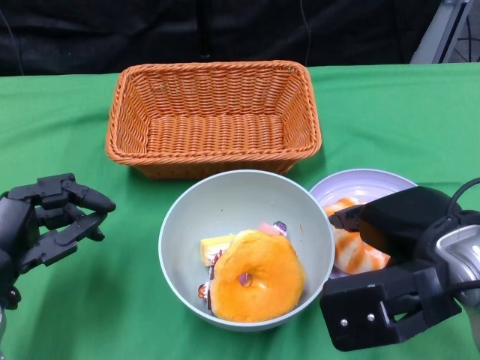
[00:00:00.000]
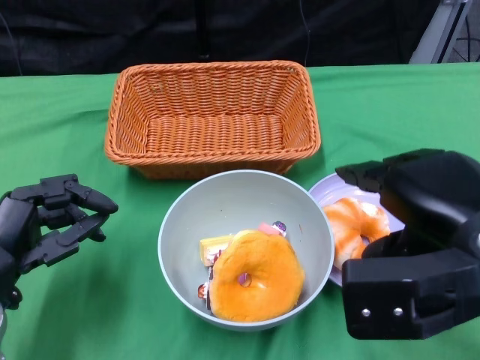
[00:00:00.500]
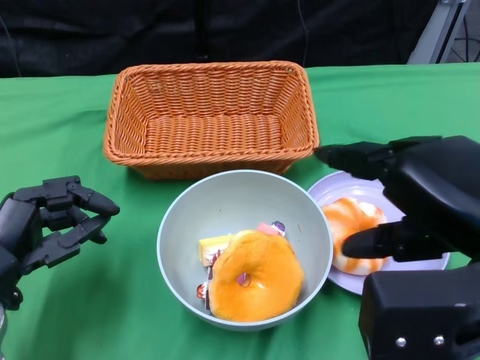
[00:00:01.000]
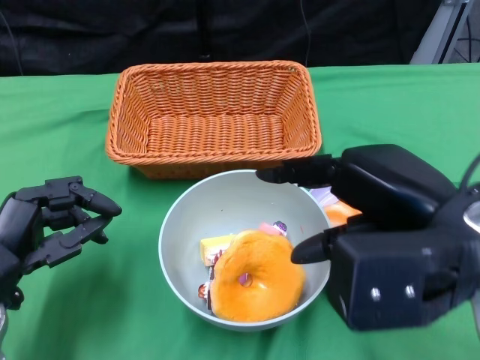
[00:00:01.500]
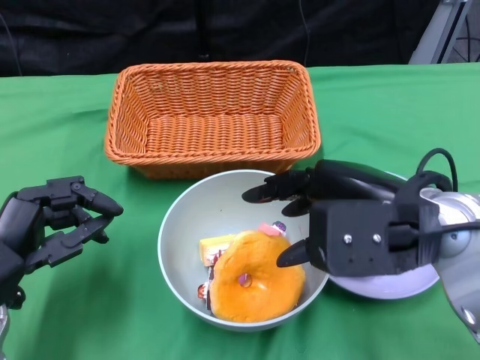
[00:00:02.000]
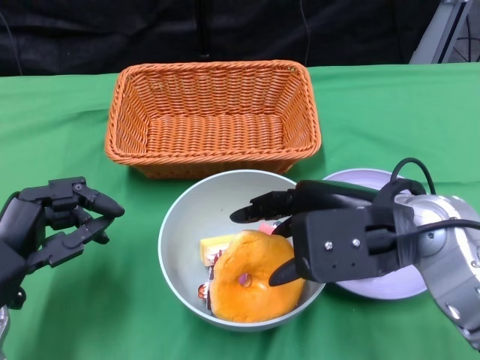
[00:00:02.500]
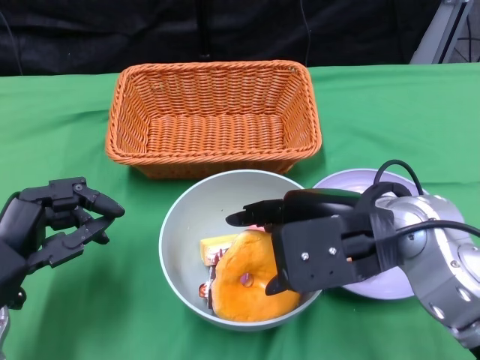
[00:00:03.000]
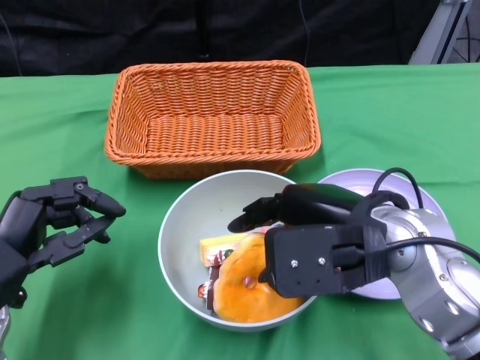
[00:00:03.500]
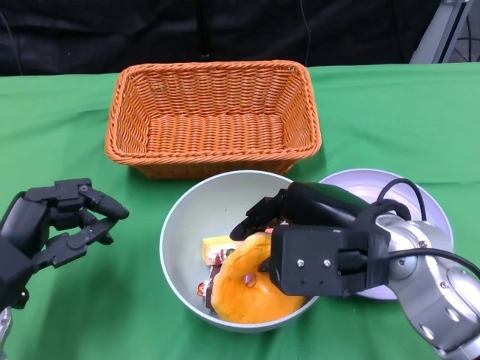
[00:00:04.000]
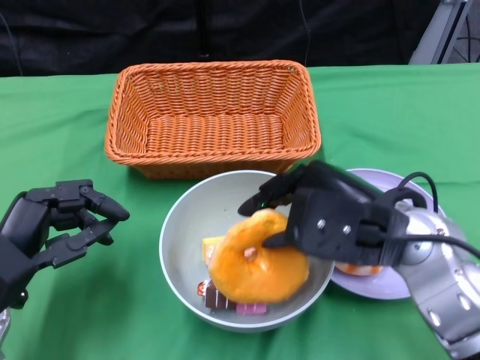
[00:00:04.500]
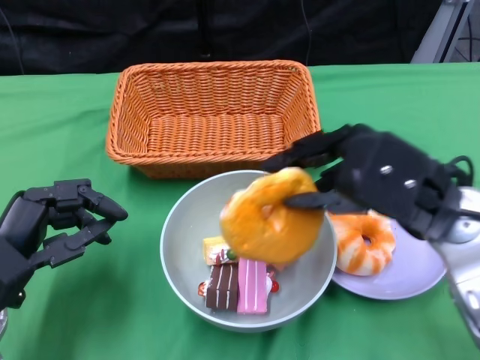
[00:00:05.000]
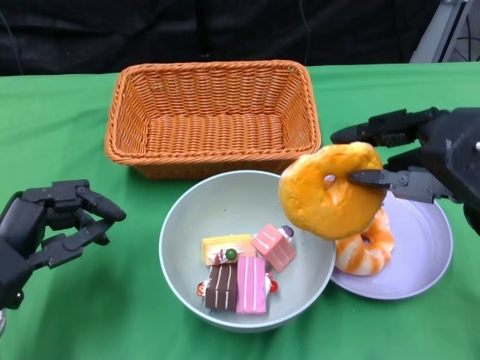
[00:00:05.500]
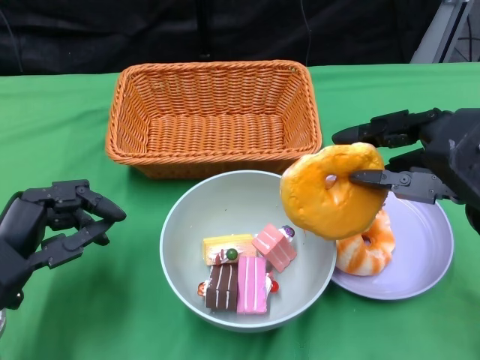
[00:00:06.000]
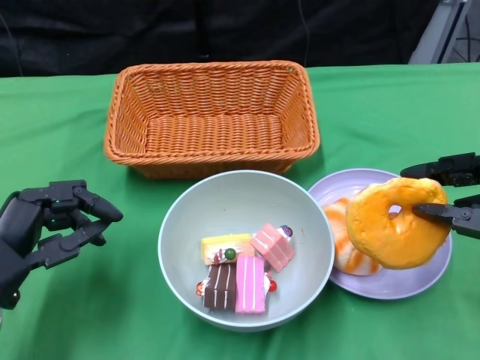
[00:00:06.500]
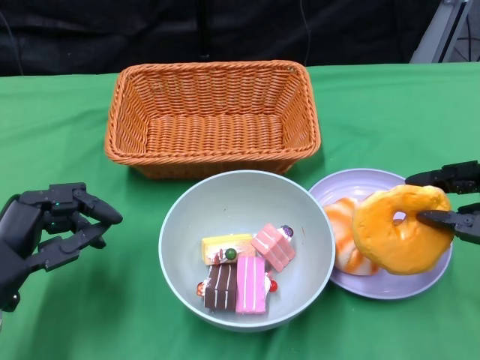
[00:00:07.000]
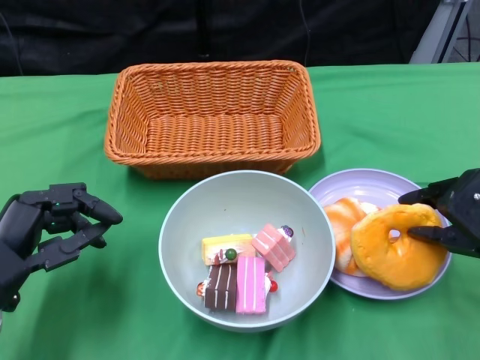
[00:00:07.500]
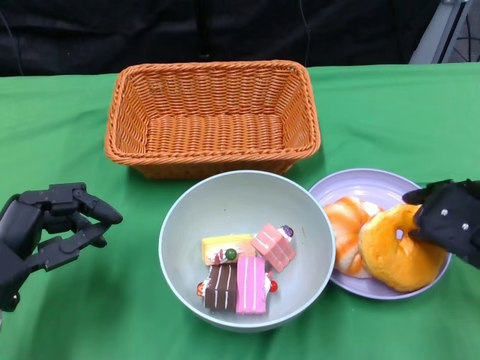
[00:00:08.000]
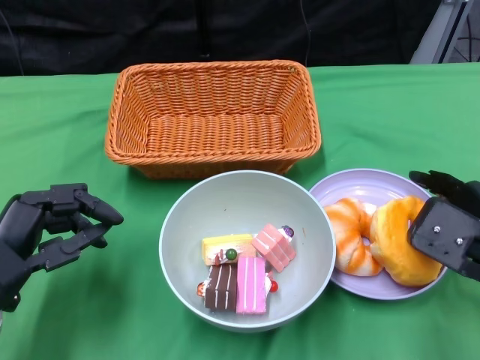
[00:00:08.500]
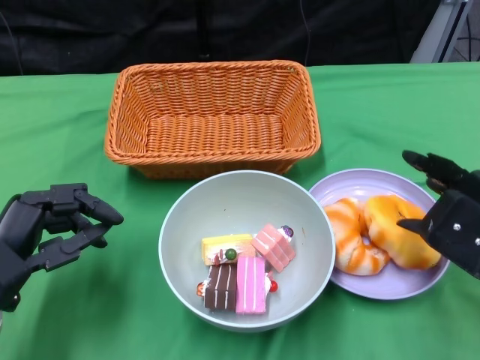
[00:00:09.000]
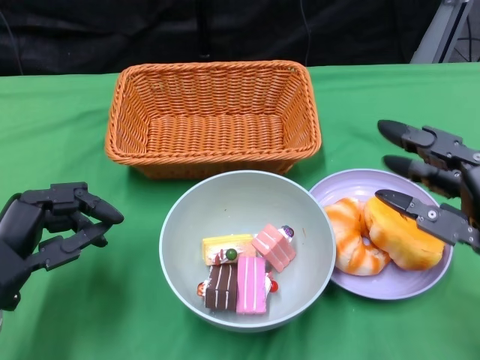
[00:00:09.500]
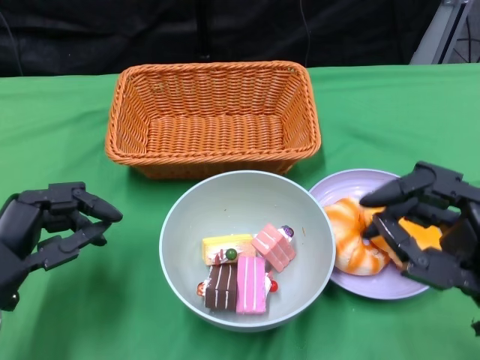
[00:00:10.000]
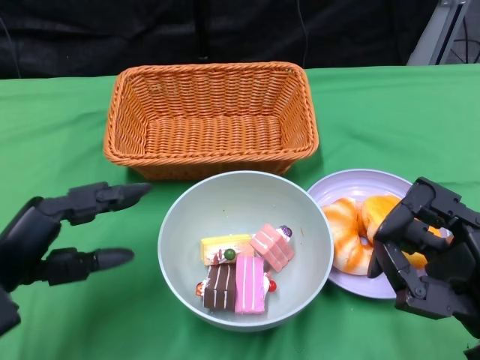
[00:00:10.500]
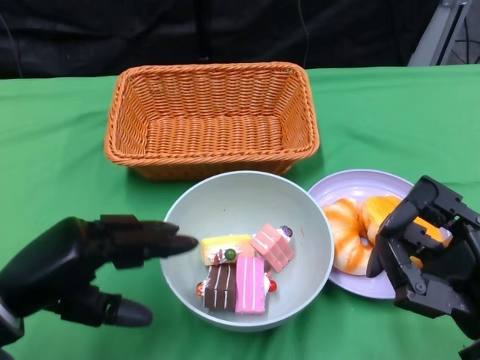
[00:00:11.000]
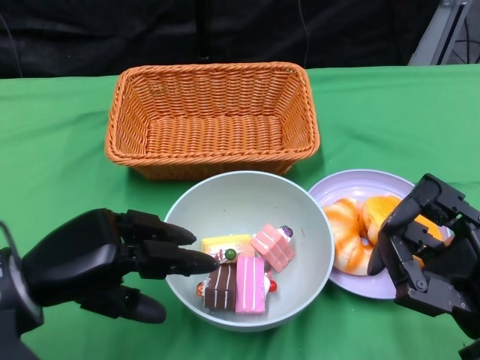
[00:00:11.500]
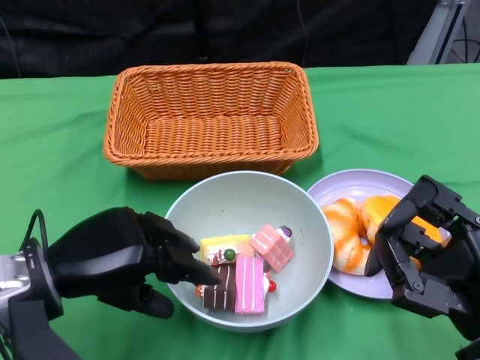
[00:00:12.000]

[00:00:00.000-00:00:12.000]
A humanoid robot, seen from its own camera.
Step, 00:00:00.000 to 00:00:09.000: Pick up the bread with the right gripper and place it on the plate.
00:00:02.000 to 00:00:04.000: The hands move only a little.
00:00:04.000 to 00:00:06.000: The right hand shifts some 10 cm to the right.
00:00:06.000 to 00:00:08.000: The right hand moves downward, about 10 cm.
00:00:08.000 to 00:00:10.000: The right hand shifts approximately 10 cm backward.
00:00:10.000 to 00:00:12.000: The left hand ends up approximately 5 cm from where it was.

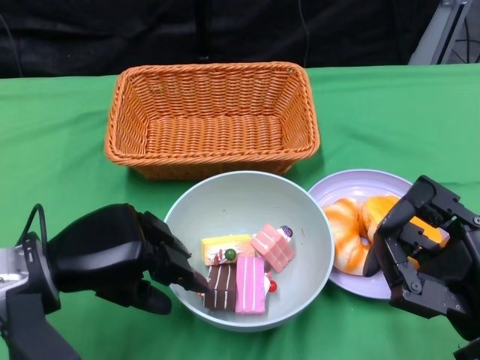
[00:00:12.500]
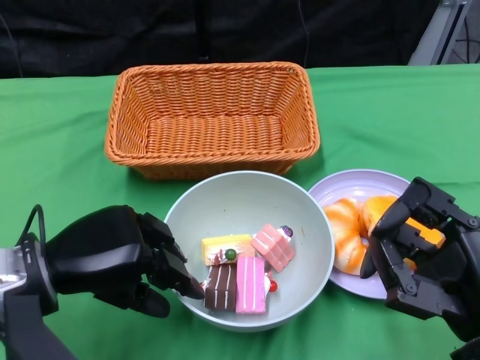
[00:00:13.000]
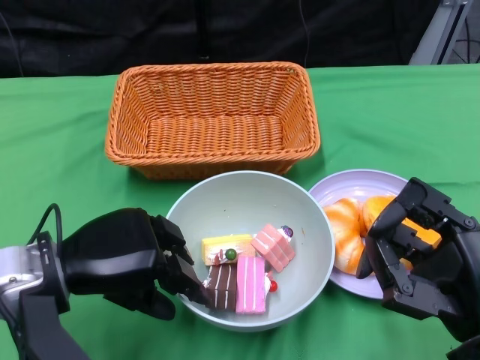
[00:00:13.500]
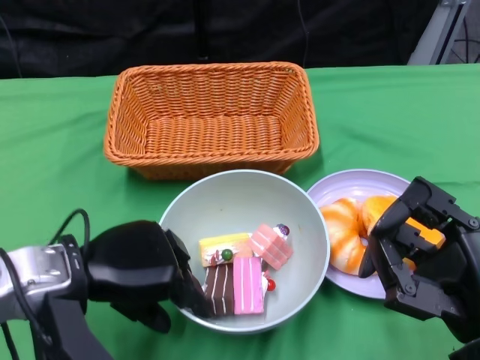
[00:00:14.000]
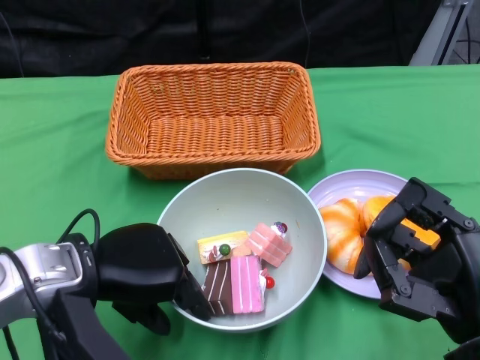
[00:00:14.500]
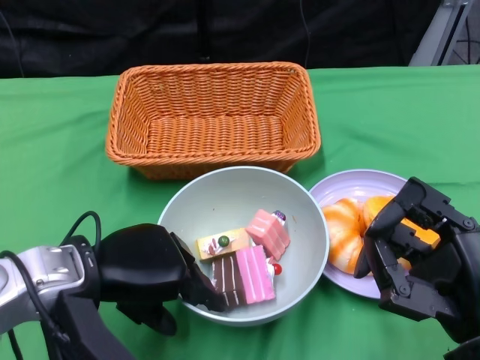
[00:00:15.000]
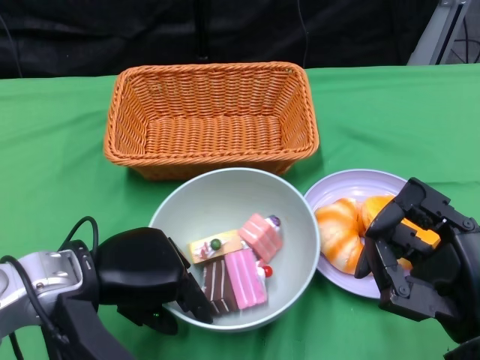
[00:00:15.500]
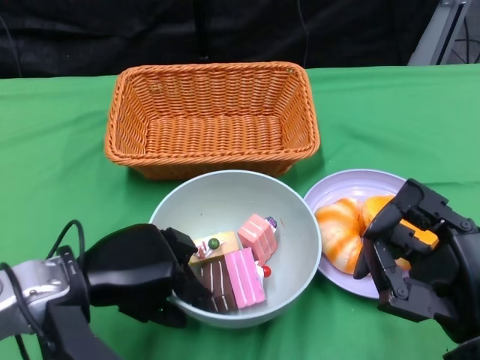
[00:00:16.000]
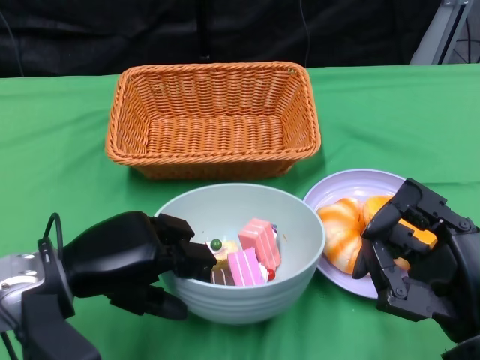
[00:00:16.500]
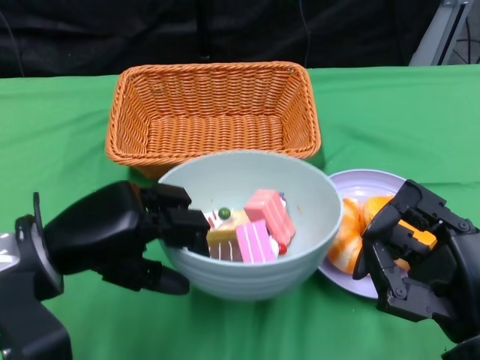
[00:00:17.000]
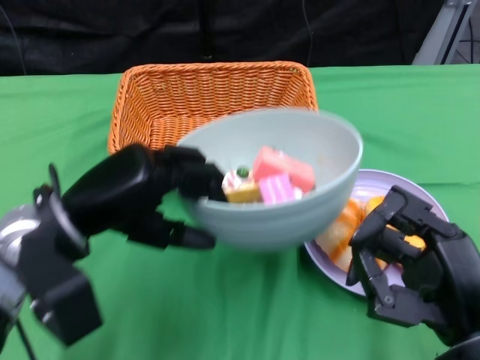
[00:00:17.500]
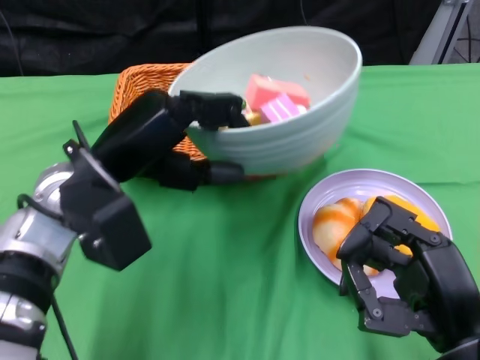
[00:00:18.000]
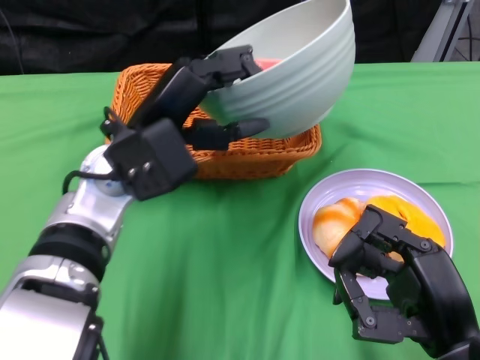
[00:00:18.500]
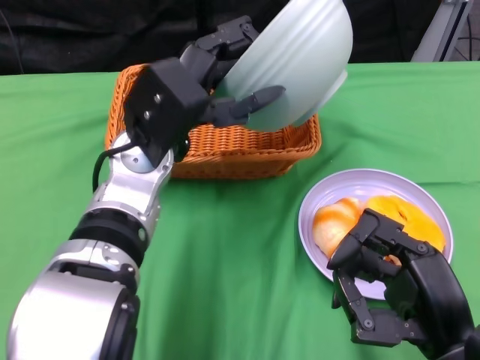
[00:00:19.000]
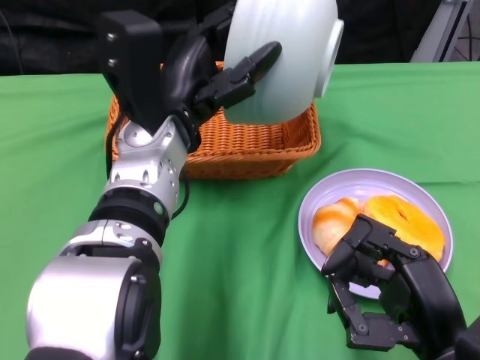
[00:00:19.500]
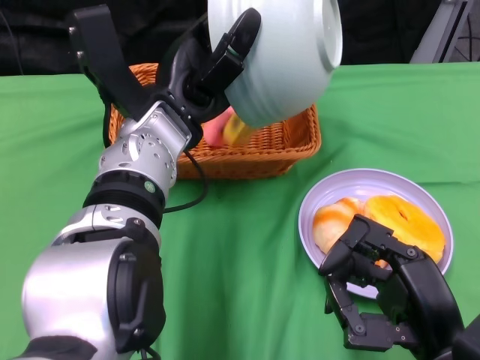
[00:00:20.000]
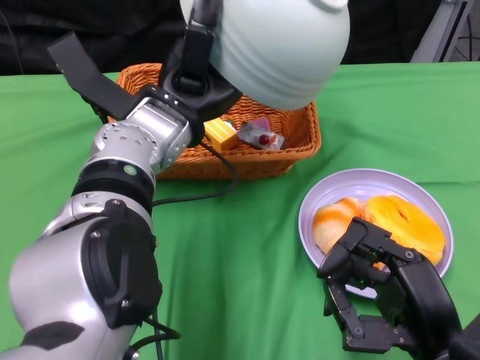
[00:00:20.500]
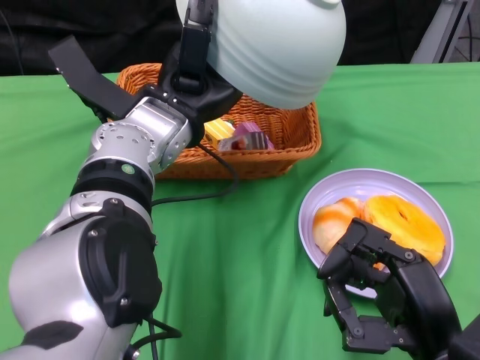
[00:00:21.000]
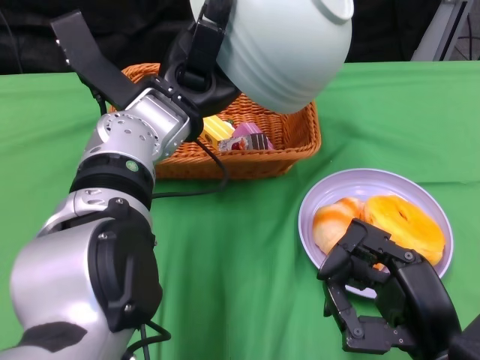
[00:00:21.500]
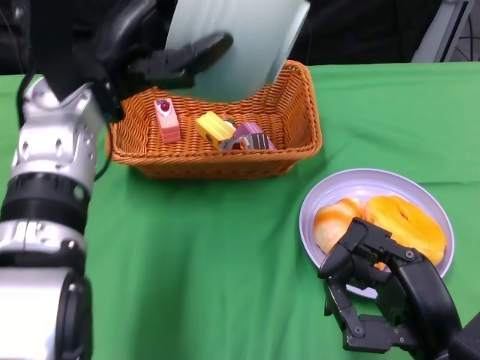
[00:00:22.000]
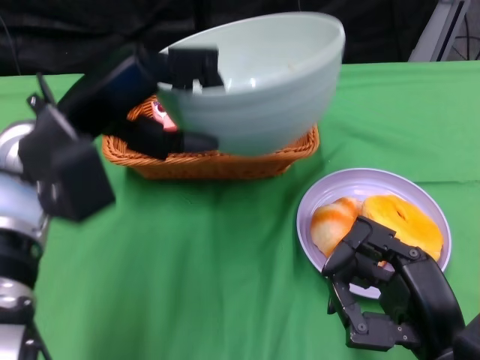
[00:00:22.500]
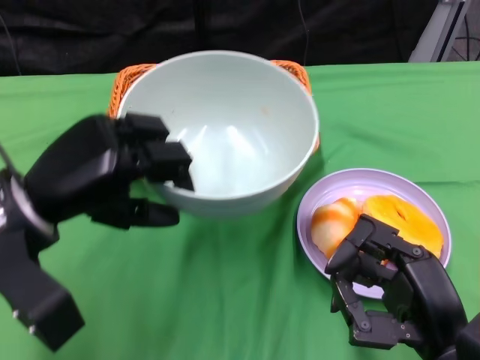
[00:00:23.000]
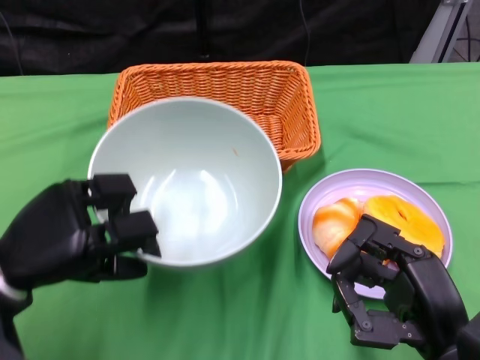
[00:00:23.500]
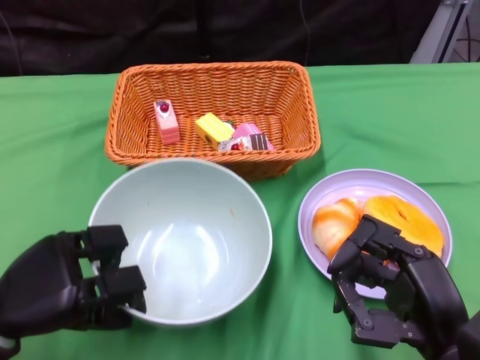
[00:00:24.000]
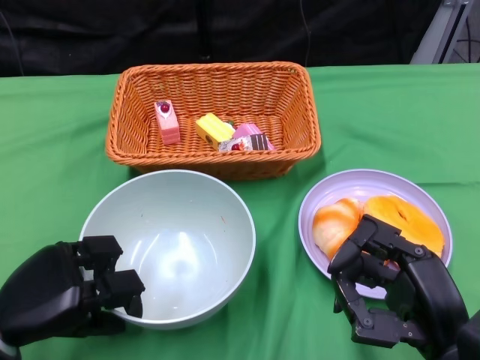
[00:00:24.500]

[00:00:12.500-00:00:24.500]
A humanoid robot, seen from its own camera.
Step, 00:00:12.500 to 00:00:15.000: Grasp the bowl with the left gripper.
Step, 00:00:15.500 to 00:00:21.500: Pour the cake into the basket with the left gripper.
00:00:16.500 to 00:00:18.500: The left hand goes some 15 cm to the right, forward and upward.
00:00:20.500 to 00:00:22.500: The left hand shifts about 10 cm to the left.
00:00:22.500 to 00:00:24.500: The left hand travels downward, backward and to the left by approximately 20 cm.

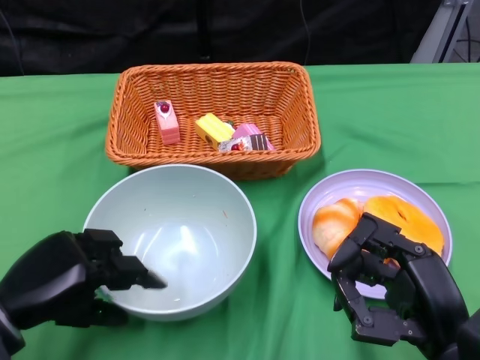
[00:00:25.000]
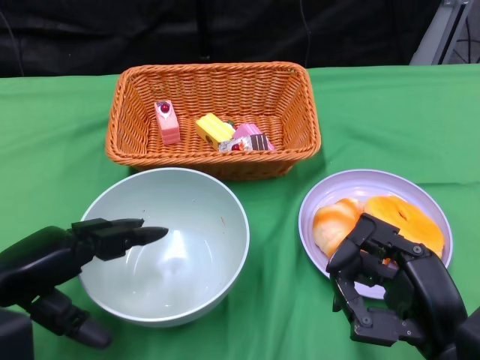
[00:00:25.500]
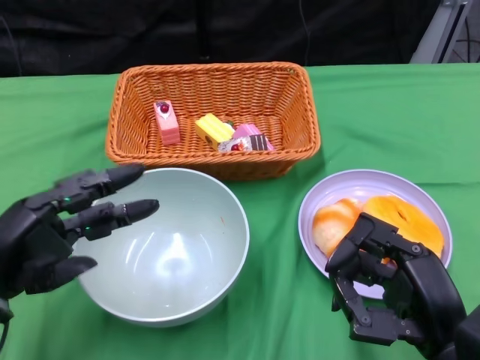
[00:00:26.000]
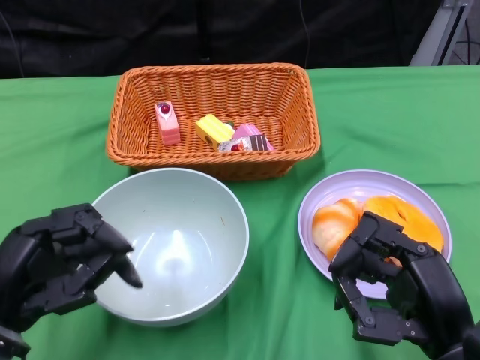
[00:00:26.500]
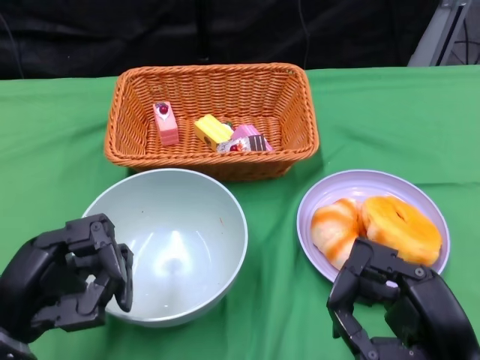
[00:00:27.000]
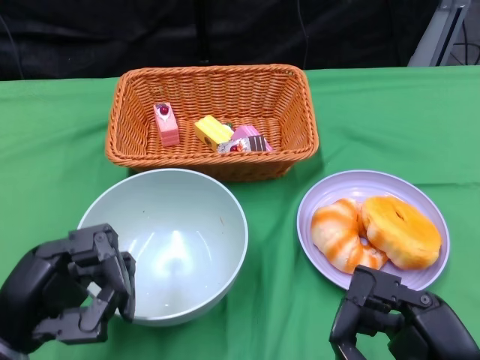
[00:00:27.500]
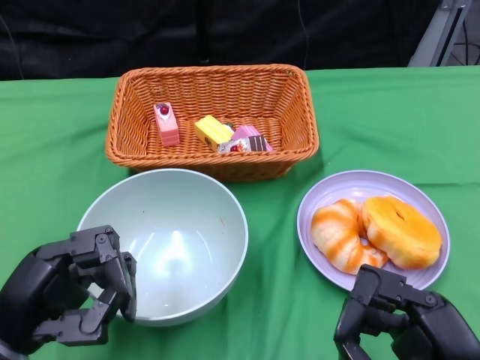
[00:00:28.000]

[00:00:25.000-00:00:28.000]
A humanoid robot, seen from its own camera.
00:00:26.500 to 00:00:28.000: The hands move only a little.
